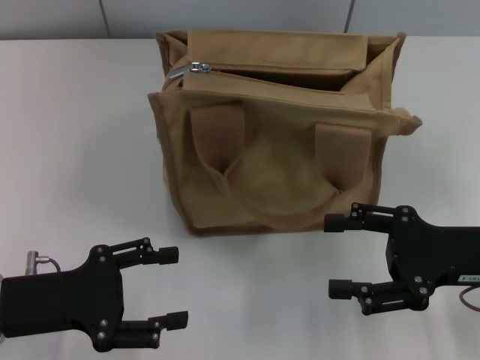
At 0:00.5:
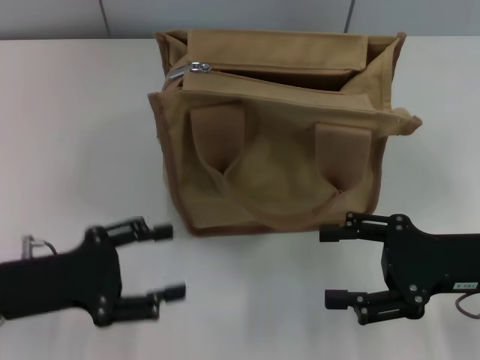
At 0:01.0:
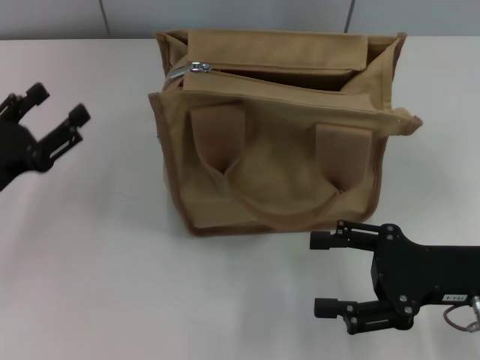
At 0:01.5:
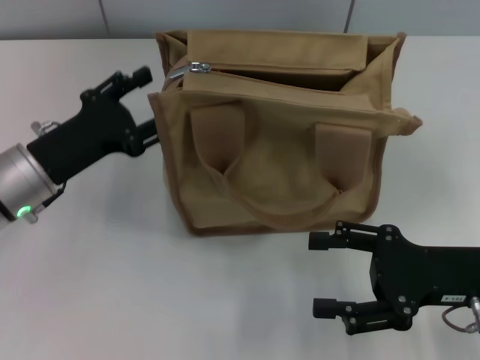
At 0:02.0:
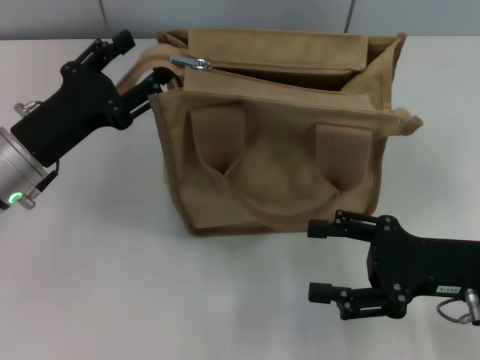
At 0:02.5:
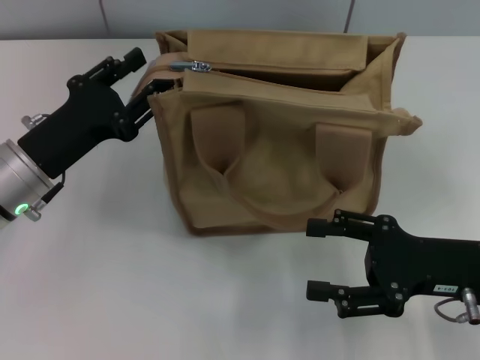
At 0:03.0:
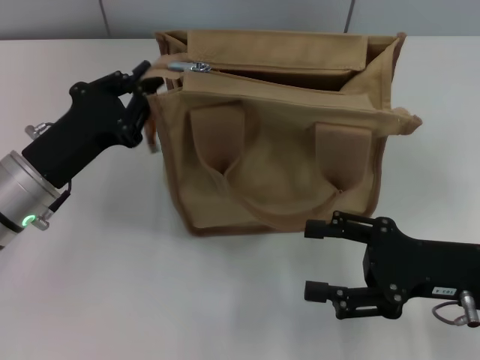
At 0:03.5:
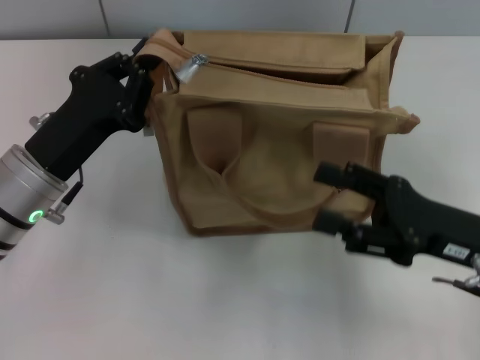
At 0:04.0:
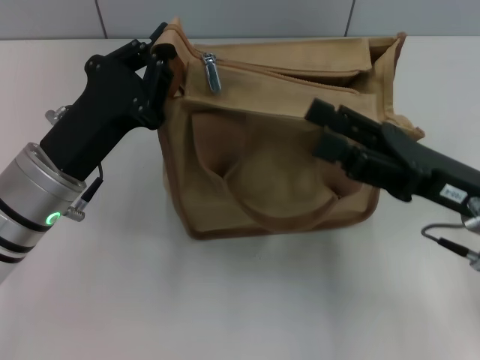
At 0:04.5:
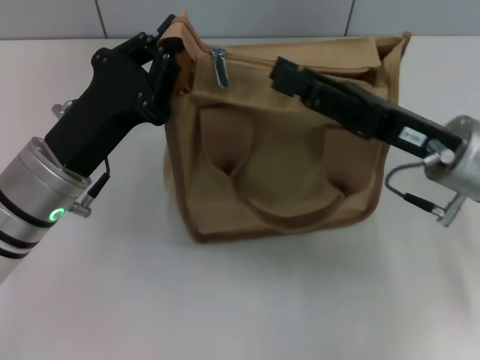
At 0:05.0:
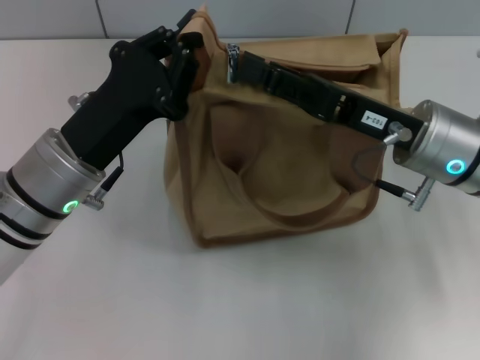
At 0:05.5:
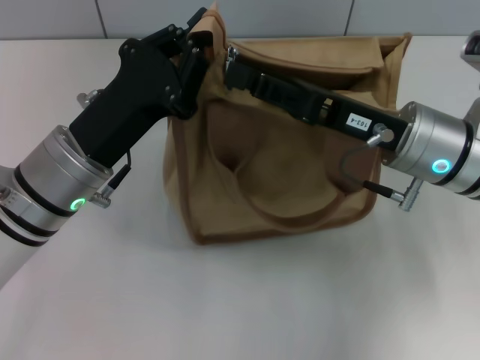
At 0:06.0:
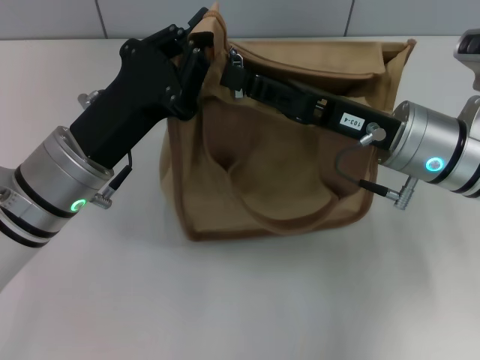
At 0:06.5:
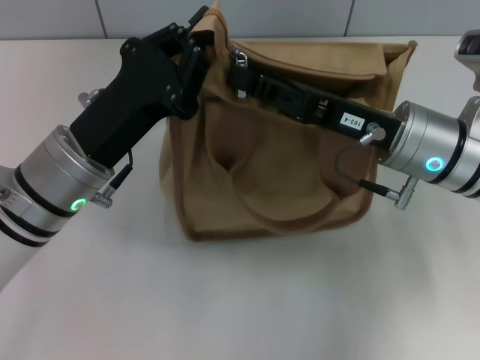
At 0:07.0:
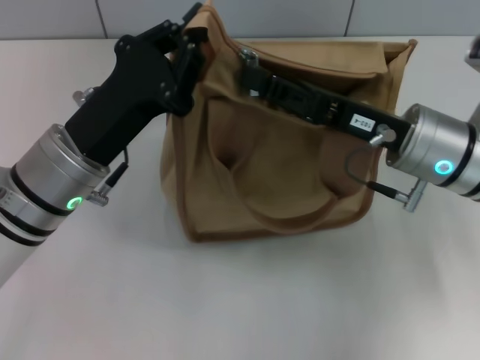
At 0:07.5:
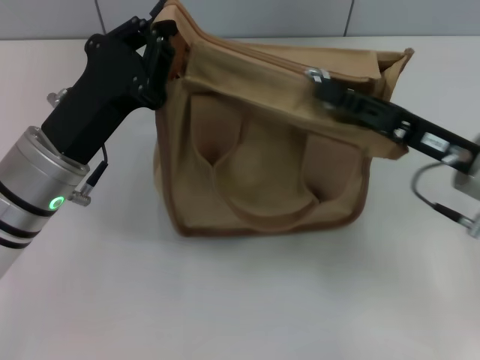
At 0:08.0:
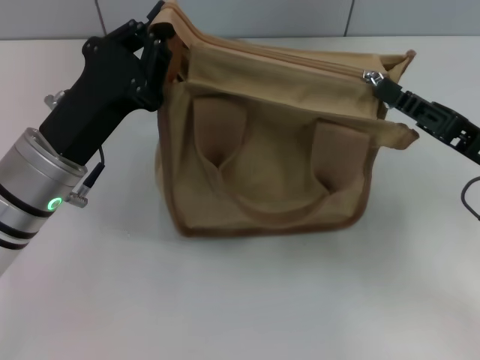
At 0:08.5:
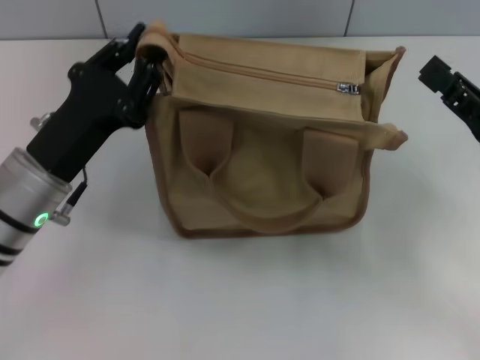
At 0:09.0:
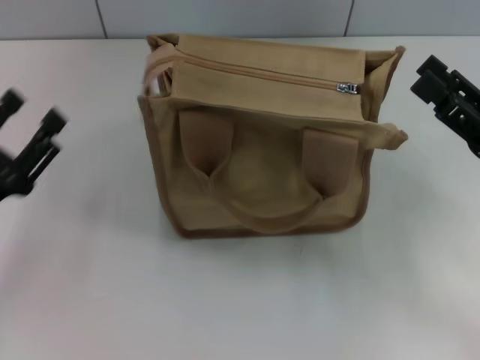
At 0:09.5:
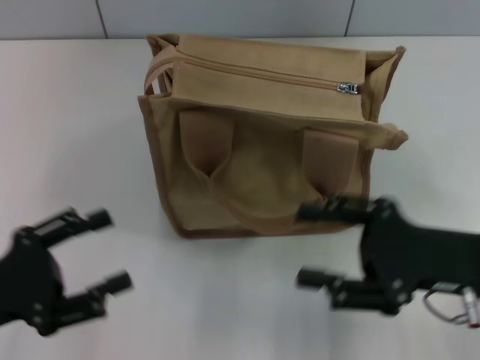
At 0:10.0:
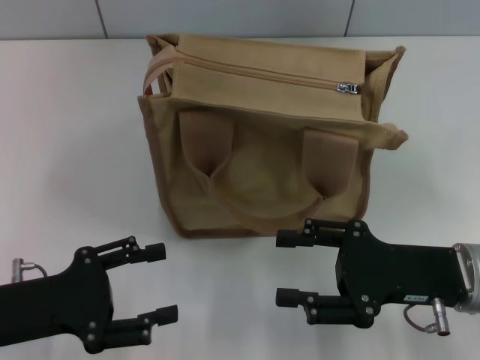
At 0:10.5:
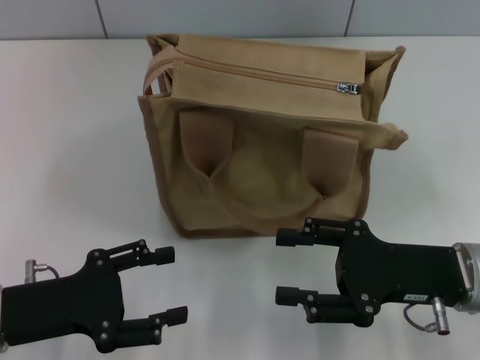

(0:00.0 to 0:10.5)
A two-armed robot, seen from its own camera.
Step, 0:00.0 - 0:08.0: Pull up the zipper with your right hand.
0:00.0 - 0:02.0: The left gripper travels forward by some 10 cm.
0:02.0 - 0:04.0: The left gripper ends up some 5 cm from where it was, and closes up.
0:04.0 - 0:06.5: The right gripper is displaced forward and to the left by some 10 cm, and closes.
0:06.5 - 0:08.5: The right gripper moves to the right and backward, some 15 cm.
0:08.5 - 0:10.5: The right gripper heads to the left, covering roughly 5 cm, and opens up. The left gripper moves backward and to the left, some 10 cm, and opens up.

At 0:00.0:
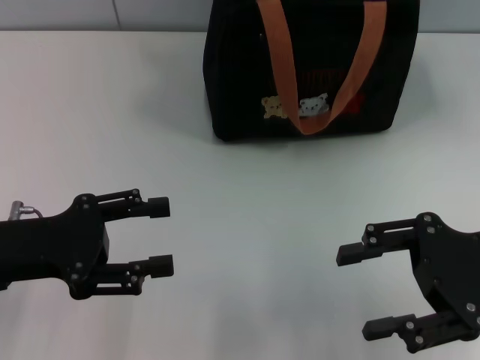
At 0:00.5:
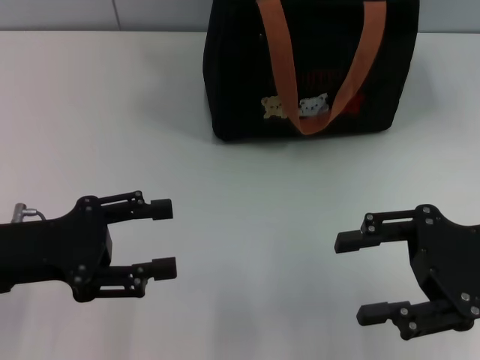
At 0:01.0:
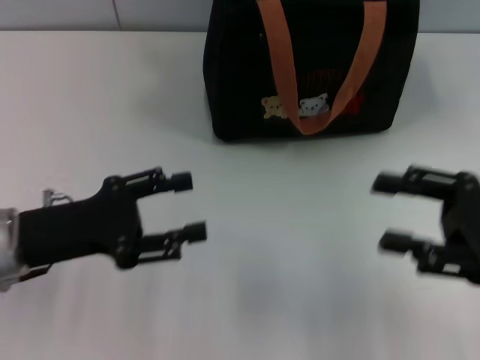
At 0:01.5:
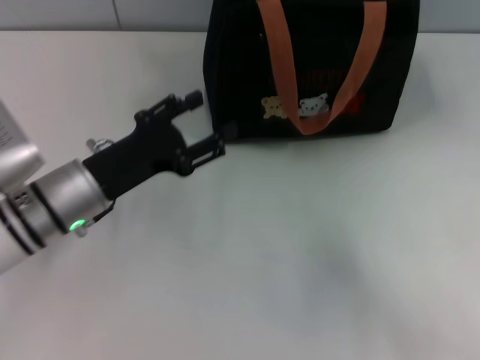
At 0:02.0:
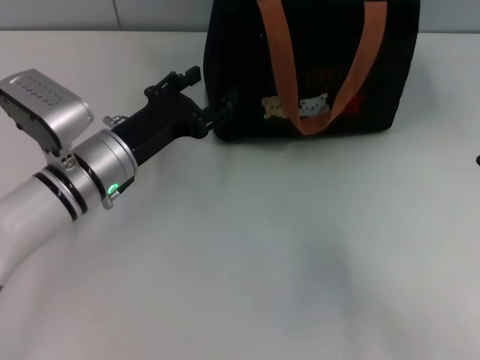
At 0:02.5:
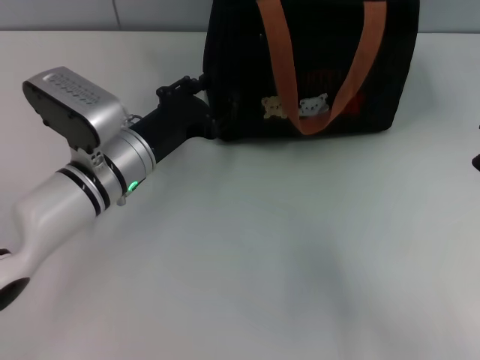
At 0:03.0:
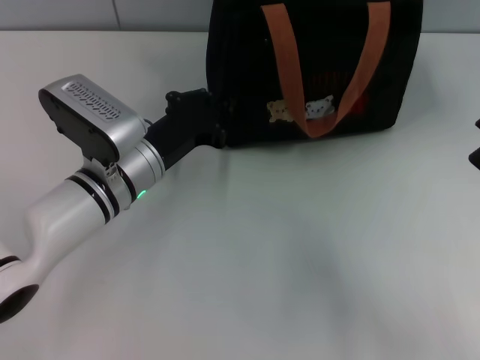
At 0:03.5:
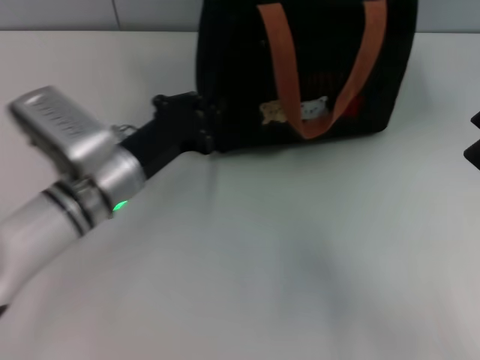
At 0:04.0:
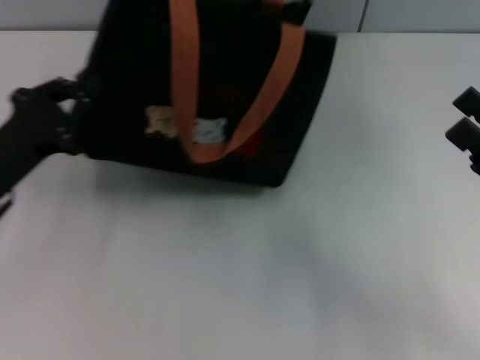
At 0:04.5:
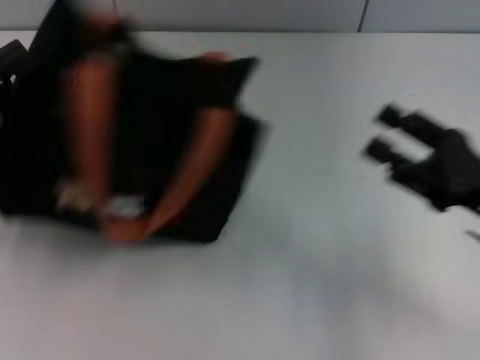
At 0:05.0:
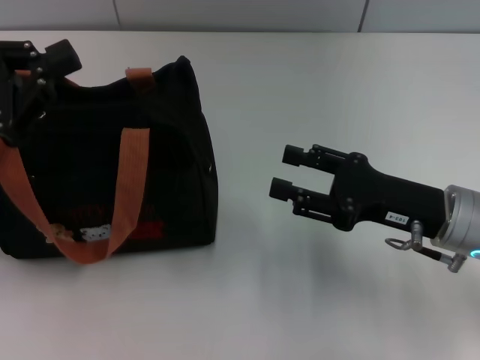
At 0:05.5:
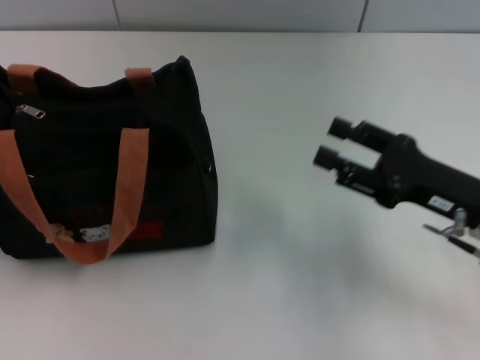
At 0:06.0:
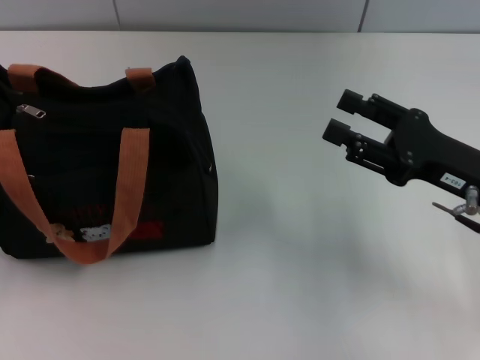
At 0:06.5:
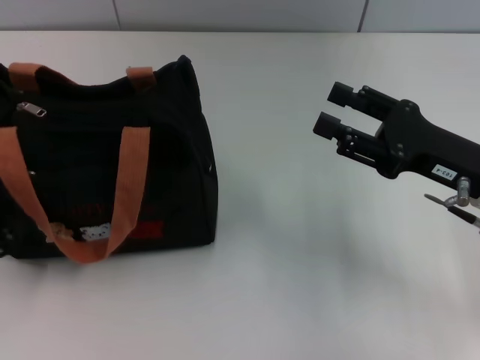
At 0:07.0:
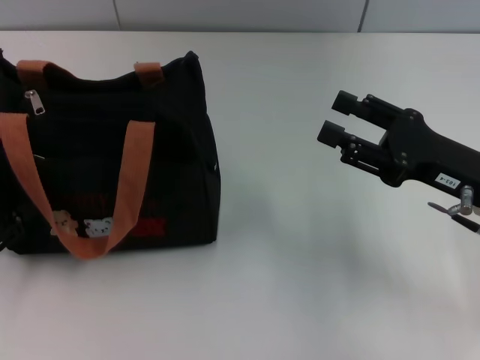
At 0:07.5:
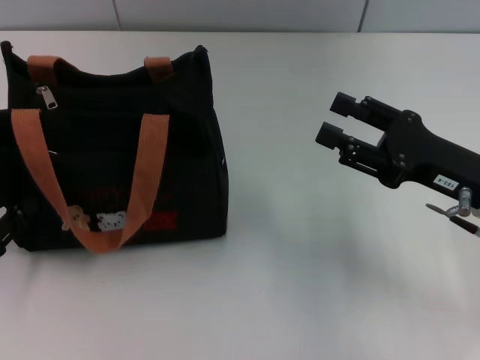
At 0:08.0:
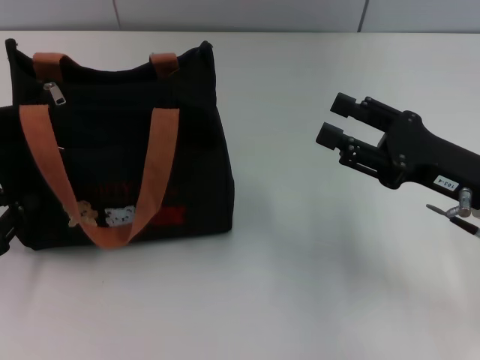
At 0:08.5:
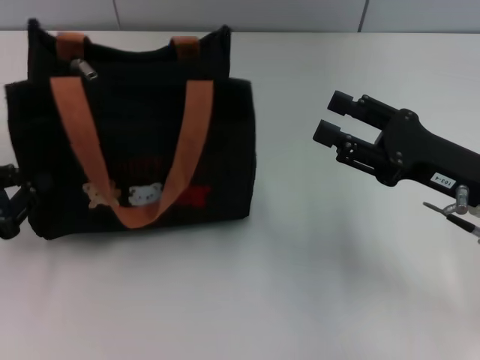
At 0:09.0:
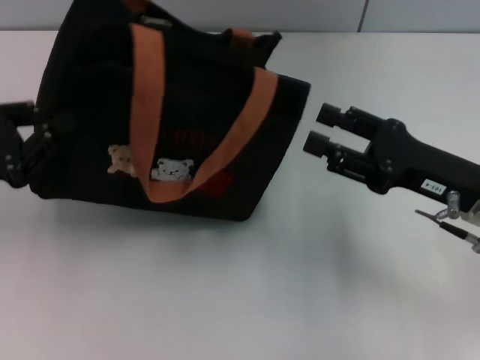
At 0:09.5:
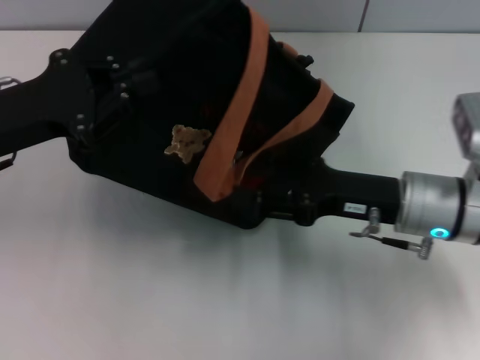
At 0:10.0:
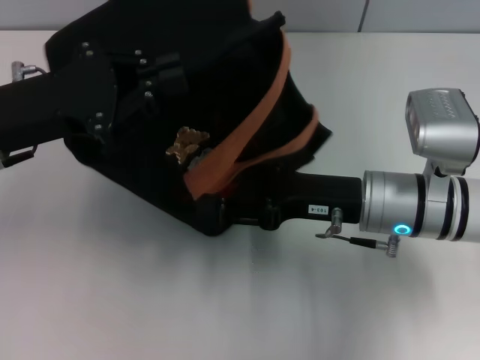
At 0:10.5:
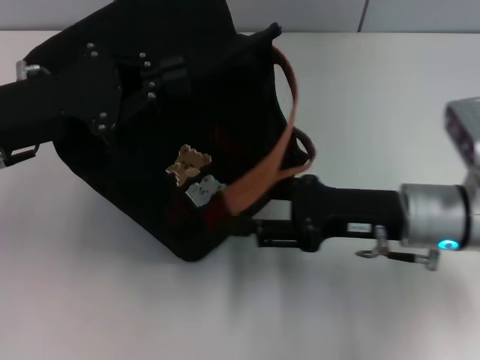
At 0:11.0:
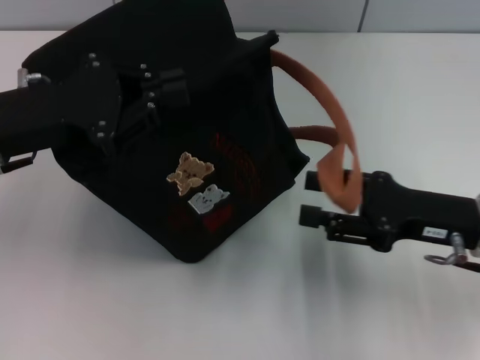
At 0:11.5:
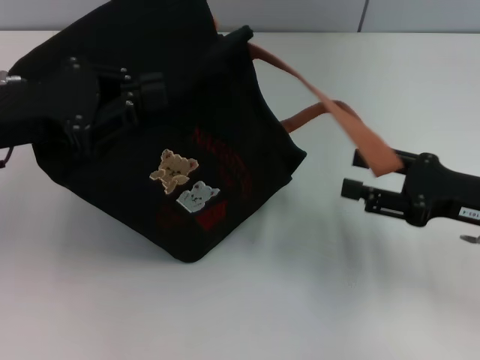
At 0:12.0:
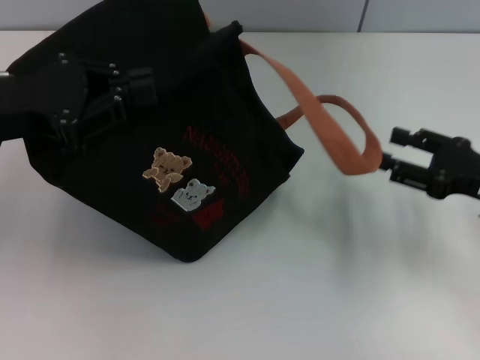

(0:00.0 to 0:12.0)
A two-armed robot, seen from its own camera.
0:00.0 - 0:02.0: The left gripper goes roughly 15 cm to the right, forward and downward, while the right gripper heads to the right and backward, covering about 10 cm.
0:02.0 - 0:04.0: The left gripper travels to the left and backward by approximately 15 cm, and closes its fingers.
0:04.0 - 0:06.0: The left gripper shifts about 15 cm backward and to the left, and opens its fingers. Meanwhile the right gripper goes roughly 10 cm forward and to the left.
0:06.0 - 0:08.0: The left gripper heads forward, covering roughly 5 cm, and closes its fingers.
0:08.0 - 0:10.0: The right gripper moves to the left, approximately 10 cm; the left gripper travels to the right, forward and upward by some 20 cm.
0:10.0 - 0:12.0: The right gripper is displaced to the right by about 15 cm.

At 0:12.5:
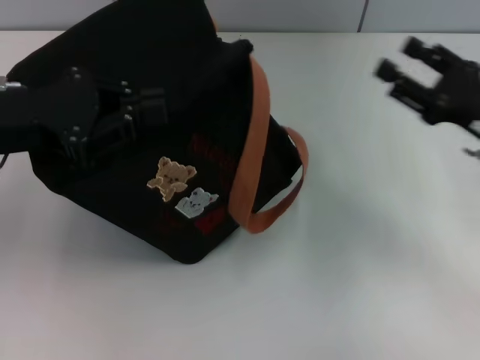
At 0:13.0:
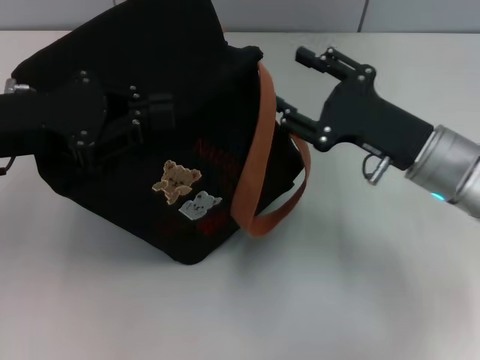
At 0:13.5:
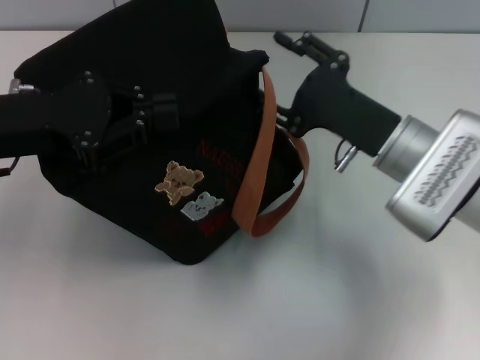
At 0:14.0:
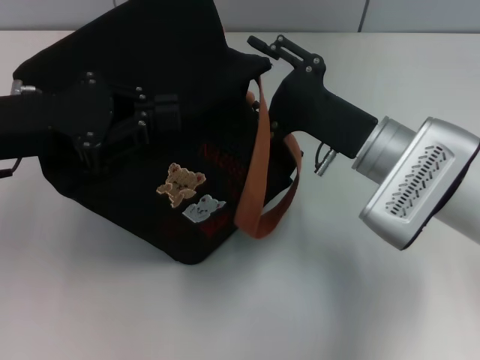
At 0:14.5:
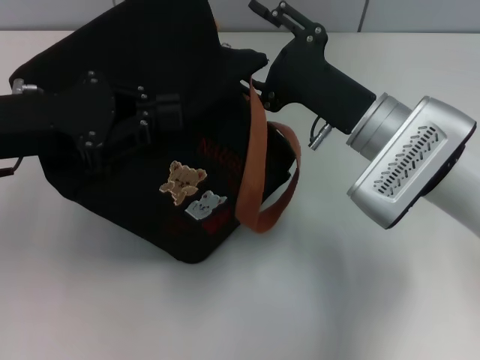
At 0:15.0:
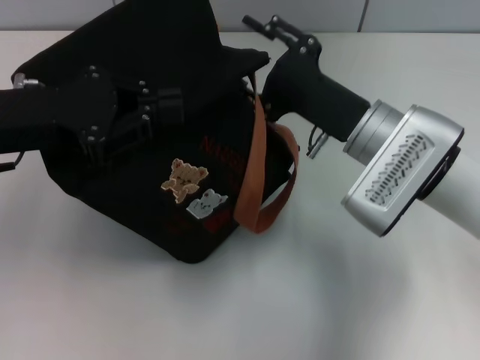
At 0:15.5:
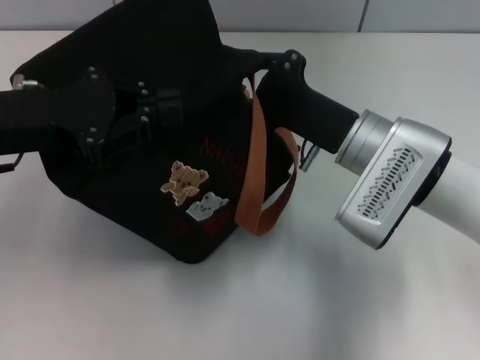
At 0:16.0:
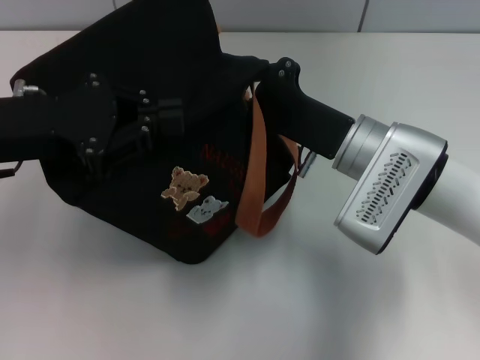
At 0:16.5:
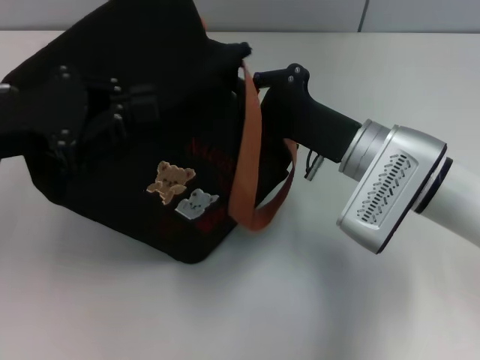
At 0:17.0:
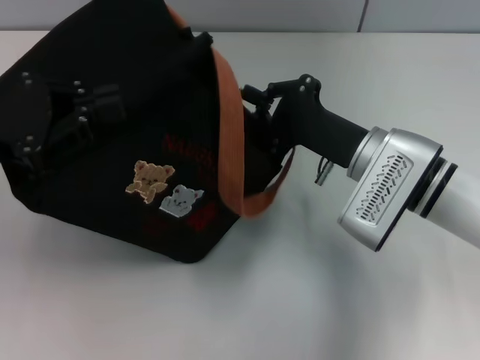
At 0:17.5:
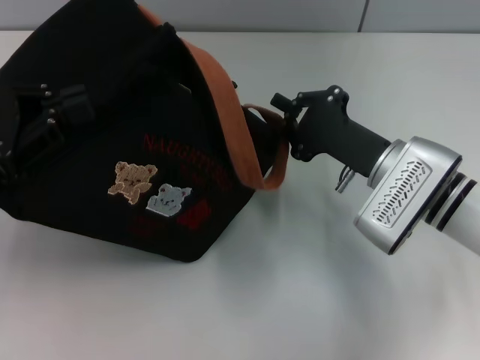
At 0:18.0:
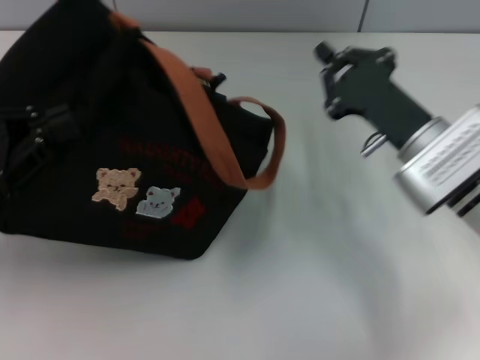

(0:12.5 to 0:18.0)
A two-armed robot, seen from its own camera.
Step, 0:12.5 - 0:17.0: Pull open the zipper with your right hand.
0:12.5 - 0:14.5: The right gripper is displaced to the left by approximately 15 cm.
0:14.5 - 0:16.0: The right gripper closes its fingers.
0:16.0 - 0:18.0: The right gripper is displaced to the right by some 5 cm; the left gripper shifts approximately 10 cm to the left and backward.
